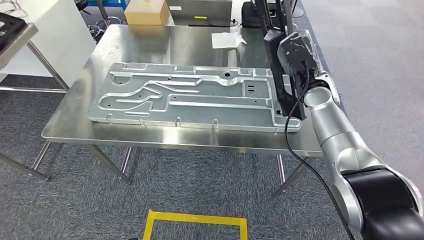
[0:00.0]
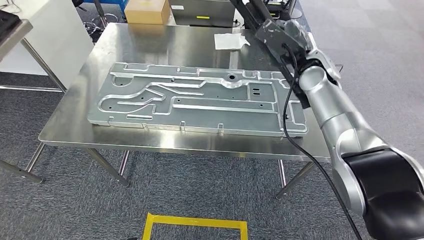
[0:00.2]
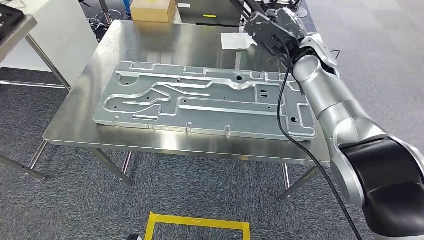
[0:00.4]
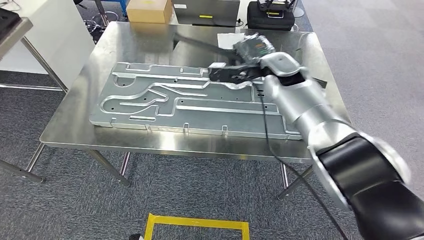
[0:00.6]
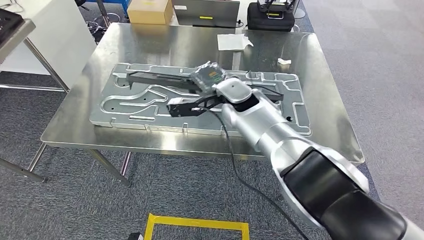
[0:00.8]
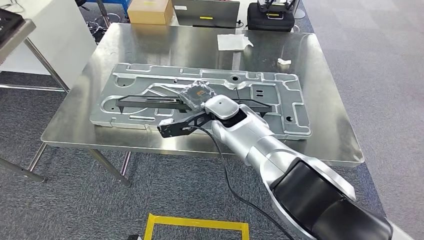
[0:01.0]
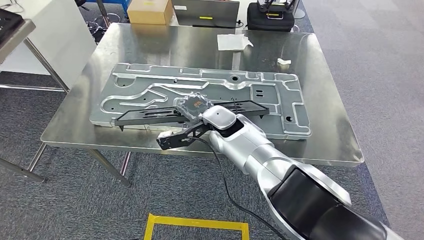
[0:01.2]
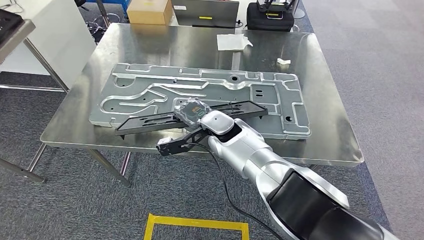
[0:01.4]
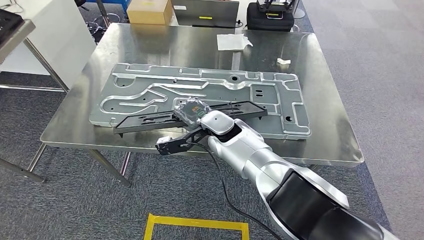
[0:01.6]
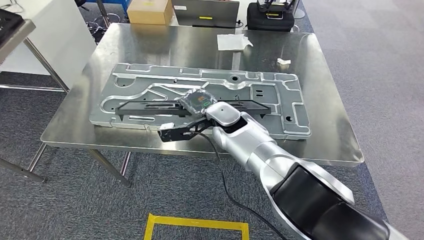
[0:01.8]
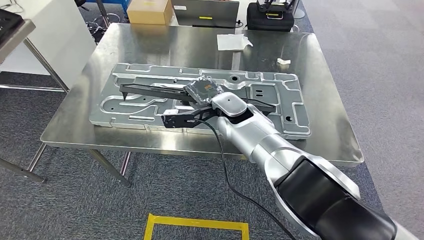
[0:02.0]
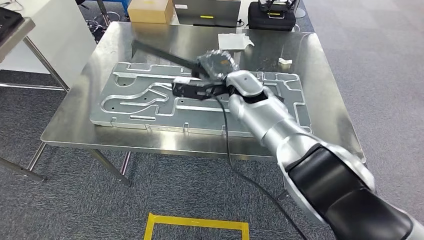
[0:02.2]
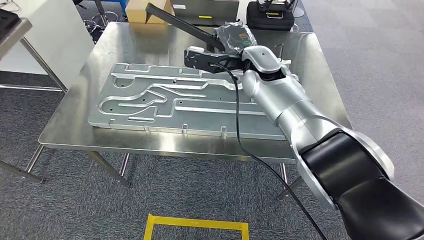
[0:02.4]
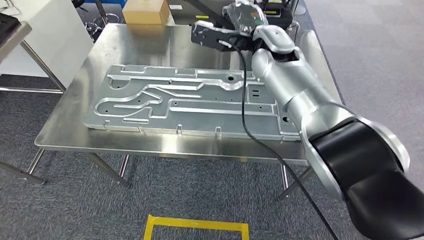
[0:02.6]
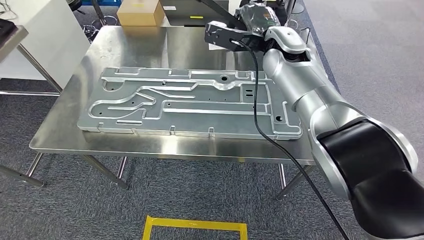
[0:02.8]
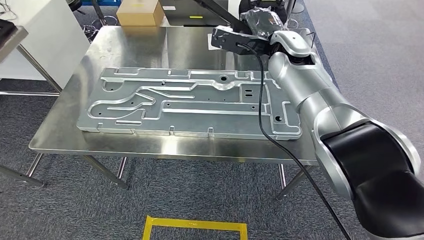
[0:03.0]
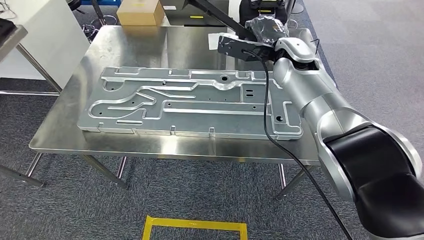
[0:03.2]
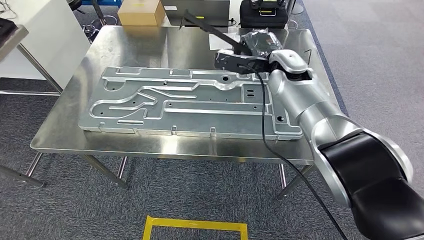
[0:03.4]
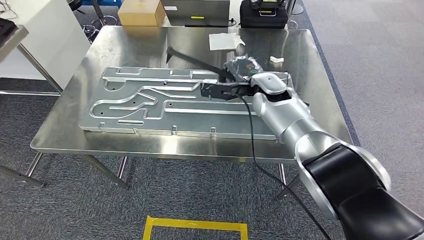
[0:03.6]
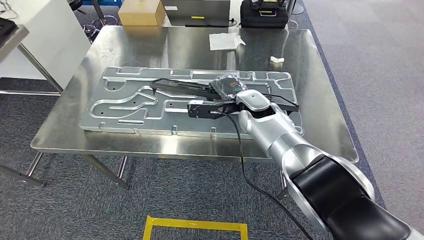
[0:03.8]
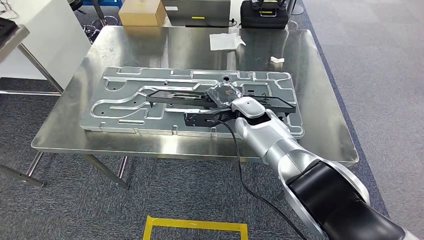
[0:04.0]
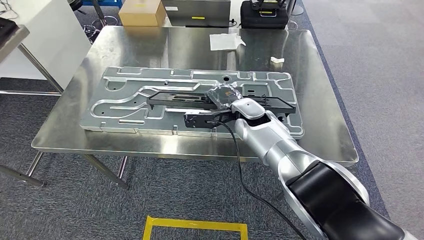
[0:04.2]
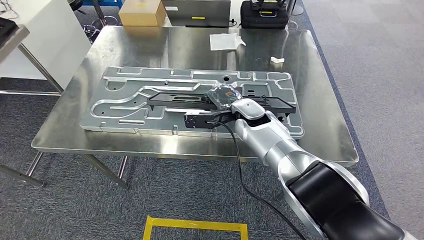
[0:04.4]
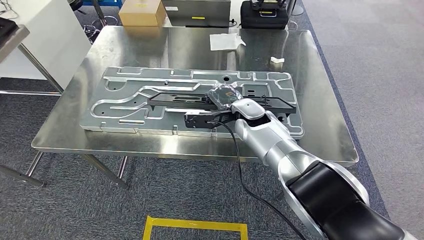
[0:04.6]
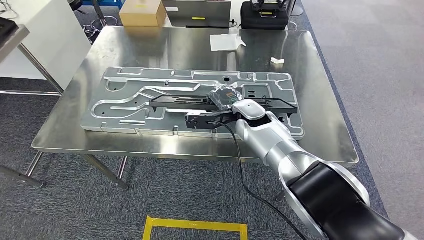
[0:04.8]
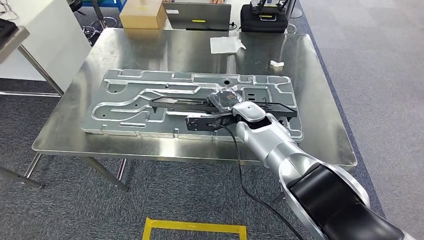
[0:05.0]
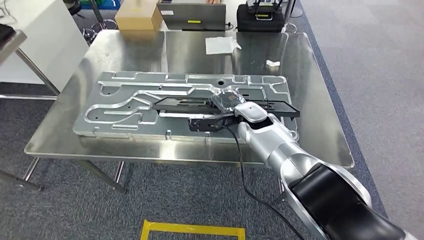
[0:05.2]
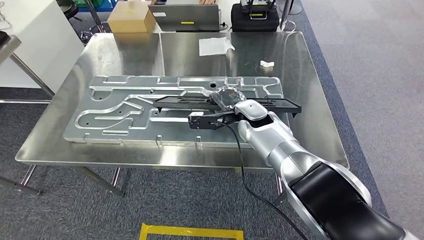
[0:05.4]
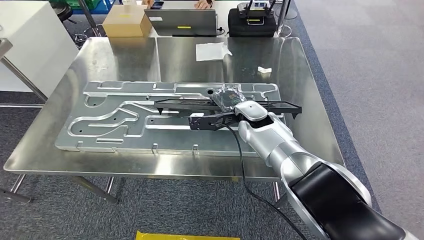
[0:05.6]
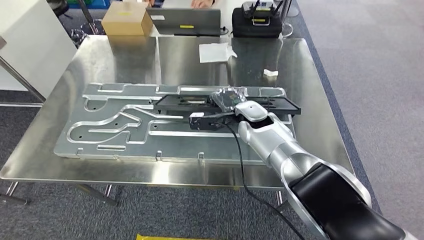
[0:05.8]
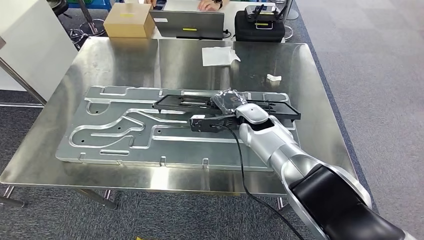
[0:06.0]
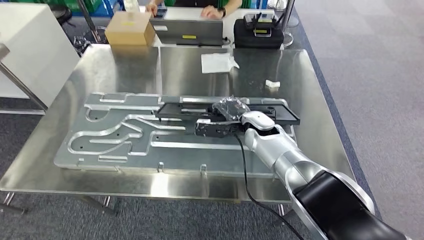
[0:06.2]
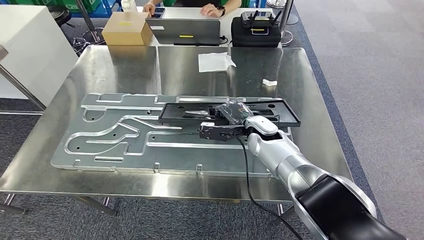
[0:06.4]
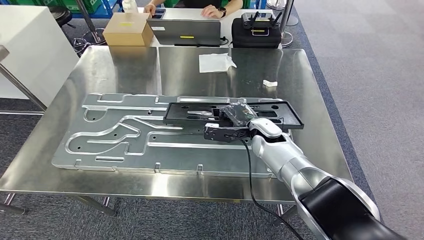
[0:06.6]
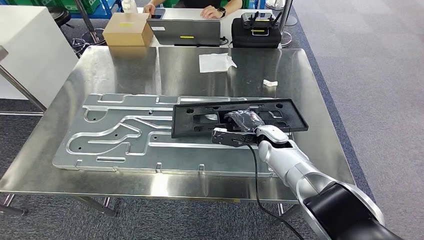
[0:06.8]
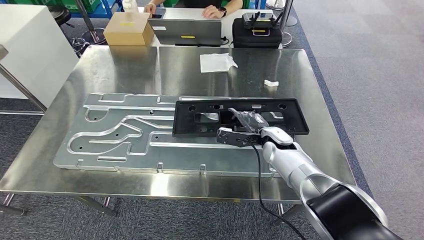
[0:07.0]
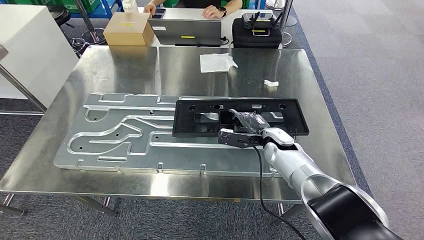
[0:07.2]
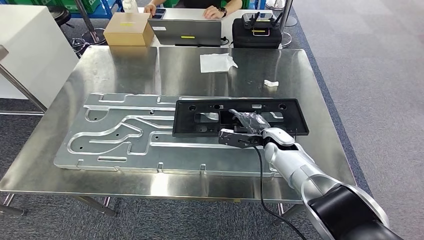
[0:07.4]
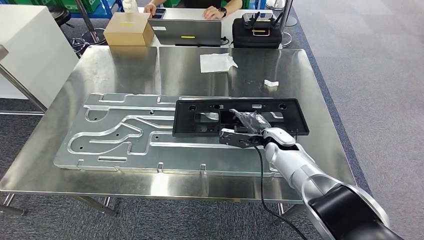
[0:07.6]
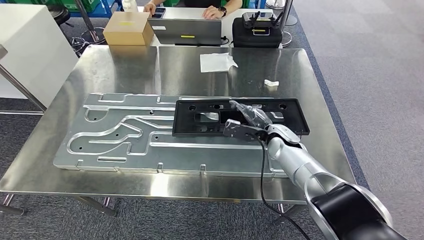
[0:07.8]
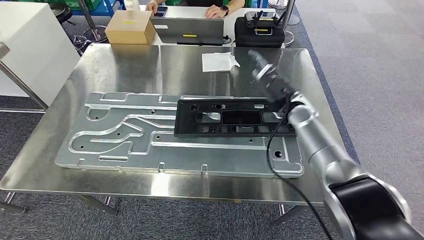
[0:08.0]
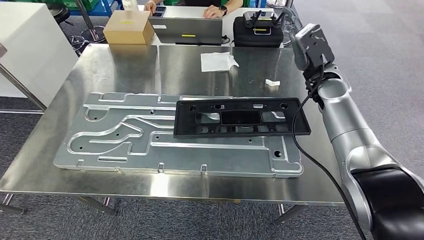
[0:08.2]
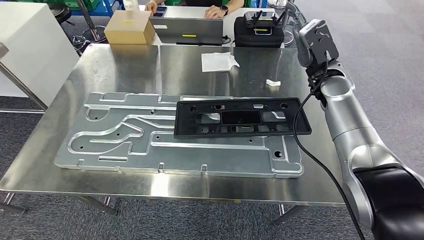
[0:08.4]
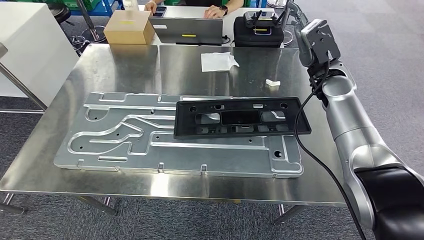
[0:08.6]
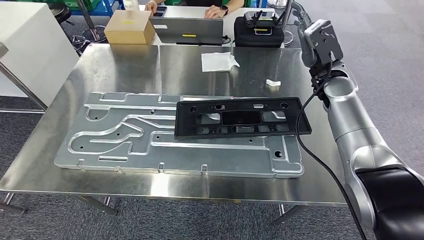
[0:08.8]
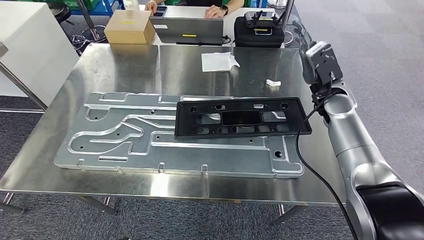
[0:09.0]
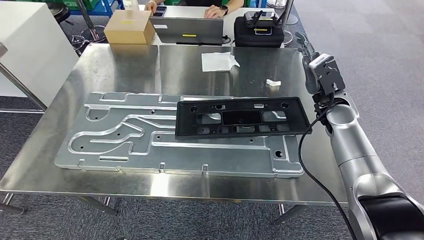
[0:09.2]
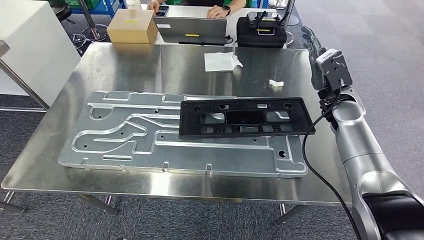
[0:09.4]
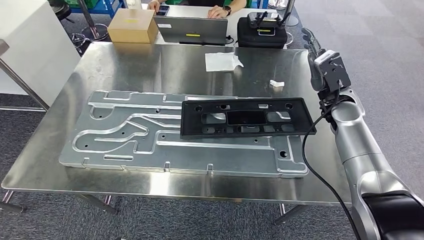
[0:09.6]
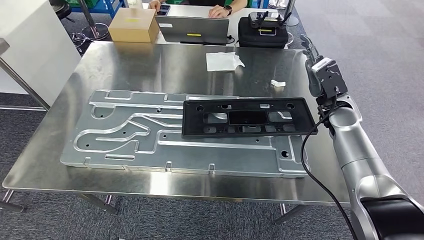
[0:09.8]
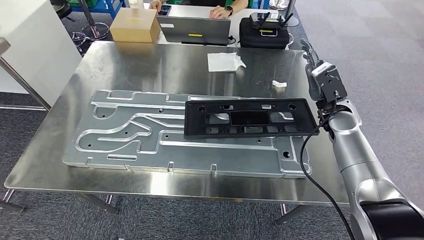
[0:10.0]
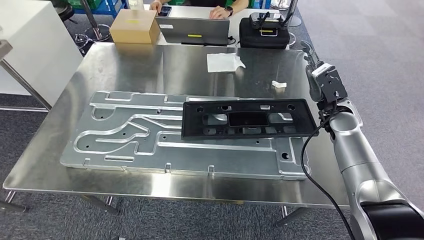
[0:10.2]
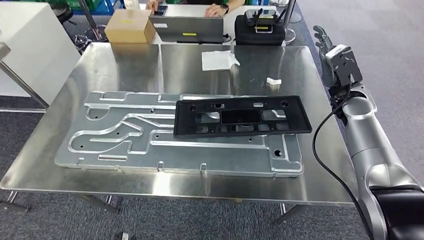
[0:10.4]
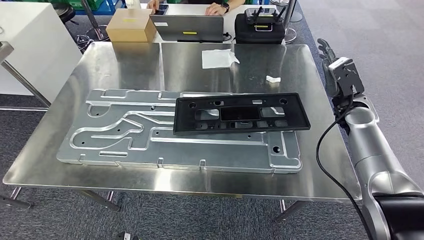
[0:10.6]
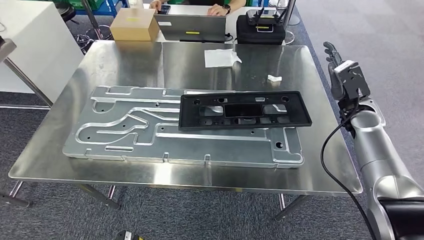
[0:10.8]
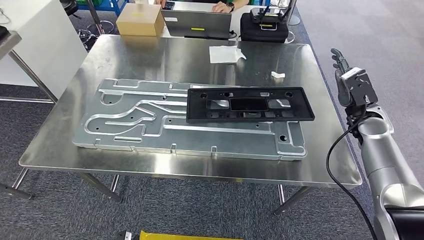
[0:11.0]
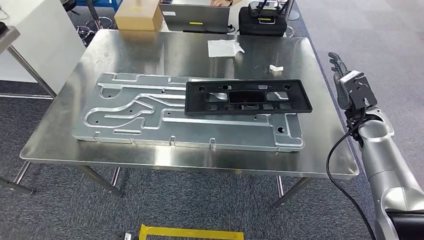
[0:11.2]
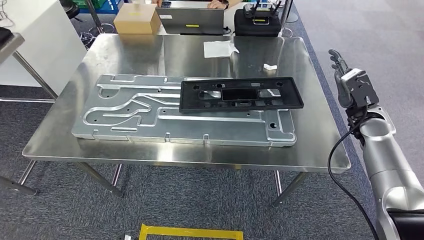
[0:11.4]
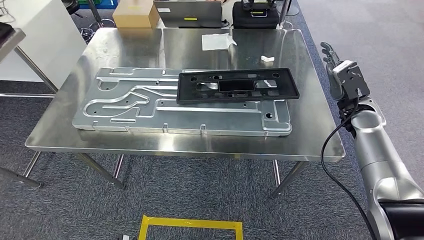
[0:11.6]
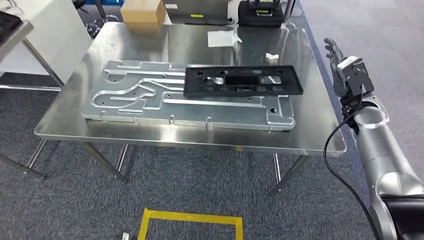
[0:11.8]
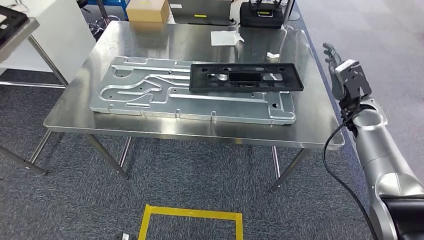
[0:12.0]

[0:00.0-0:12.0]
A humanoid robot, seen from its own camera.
Step, 0:01.0 to 0:09.4: Insert the large material into the corresponding slot on the workbench.

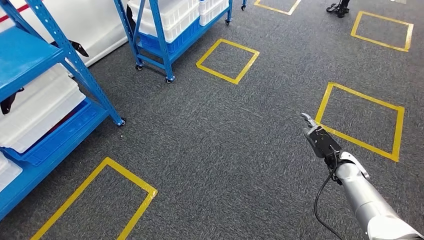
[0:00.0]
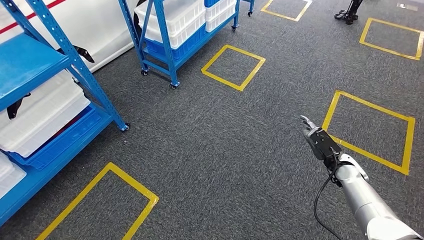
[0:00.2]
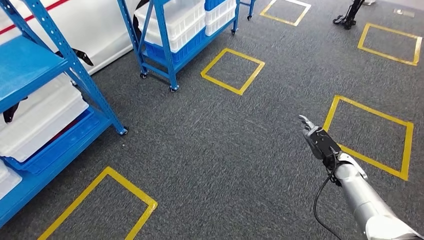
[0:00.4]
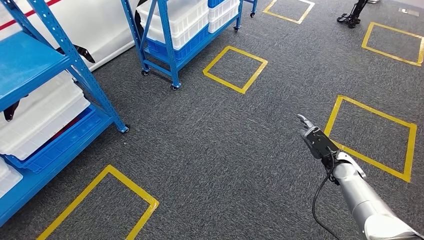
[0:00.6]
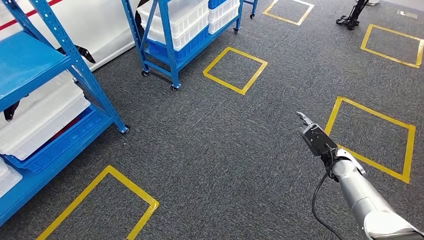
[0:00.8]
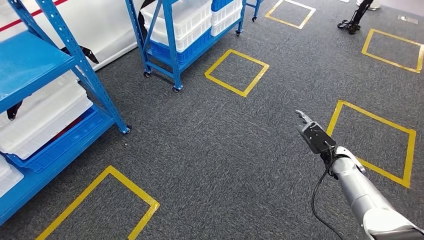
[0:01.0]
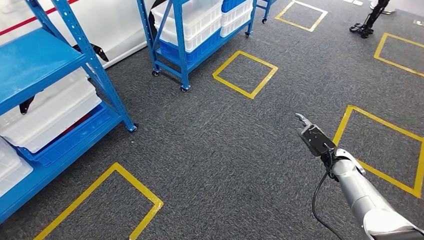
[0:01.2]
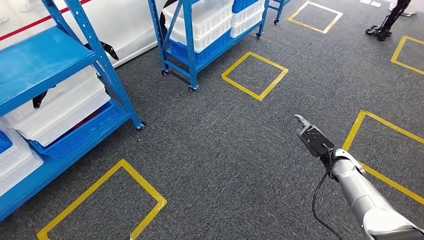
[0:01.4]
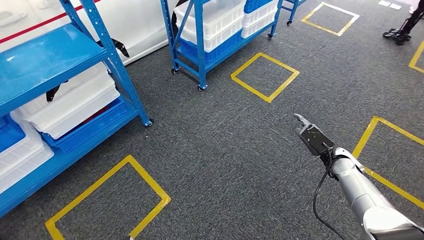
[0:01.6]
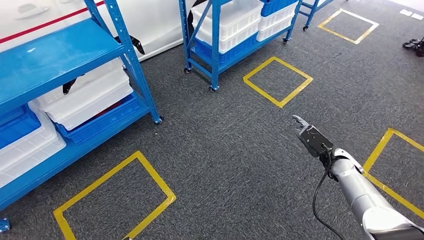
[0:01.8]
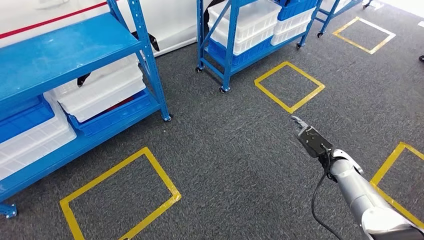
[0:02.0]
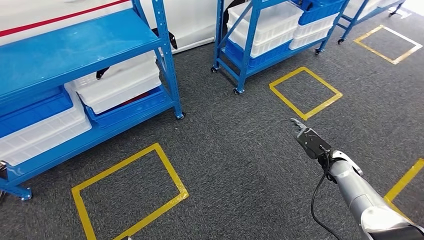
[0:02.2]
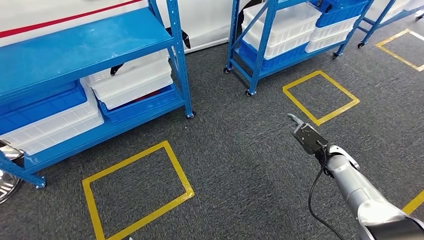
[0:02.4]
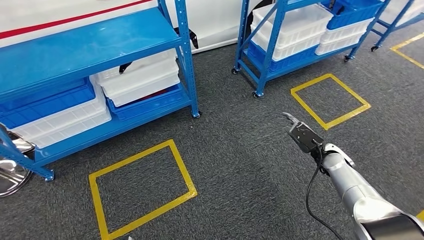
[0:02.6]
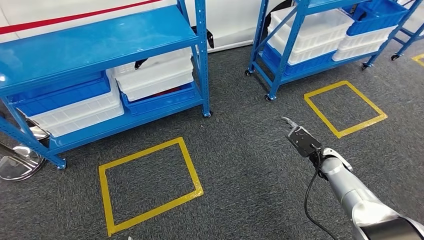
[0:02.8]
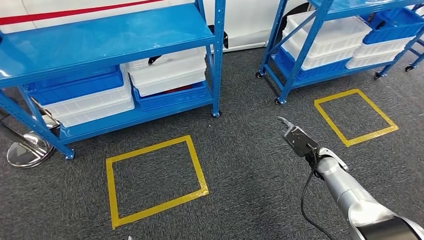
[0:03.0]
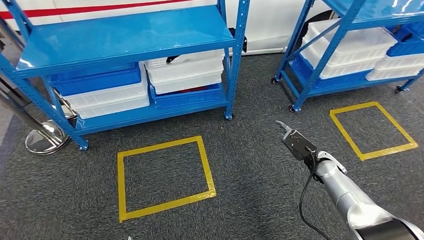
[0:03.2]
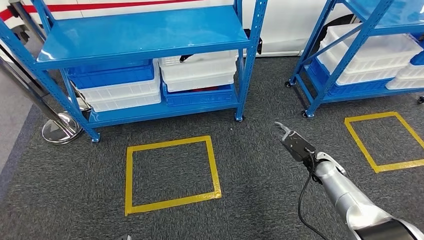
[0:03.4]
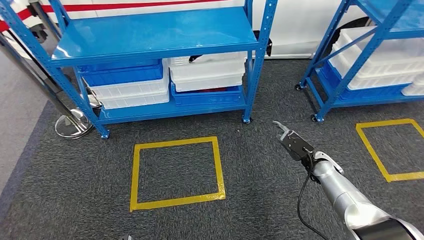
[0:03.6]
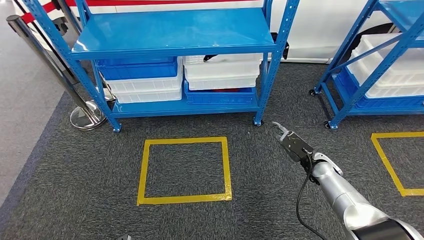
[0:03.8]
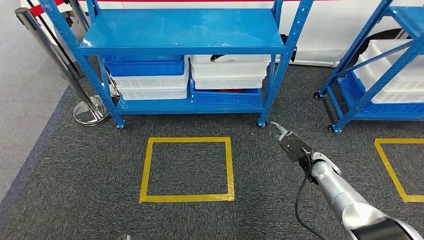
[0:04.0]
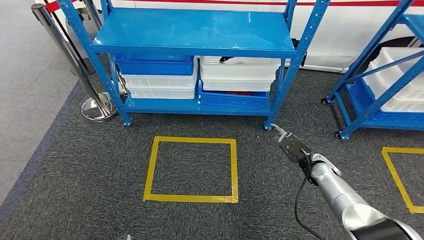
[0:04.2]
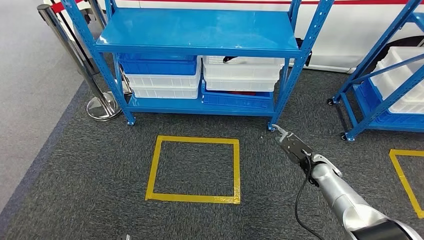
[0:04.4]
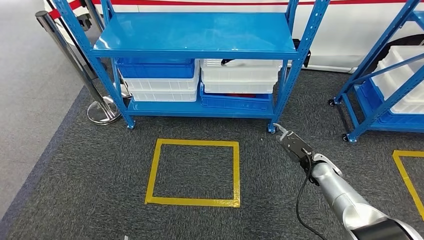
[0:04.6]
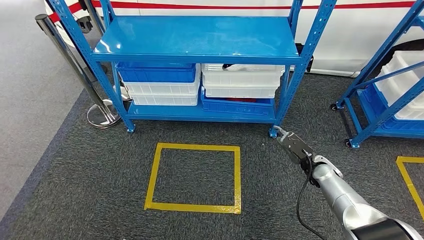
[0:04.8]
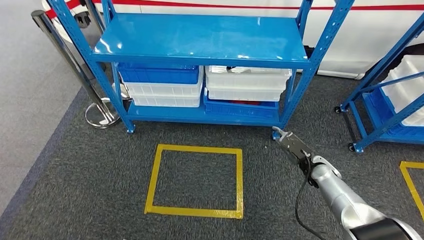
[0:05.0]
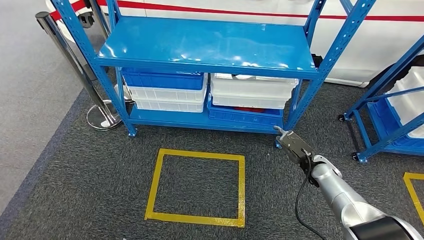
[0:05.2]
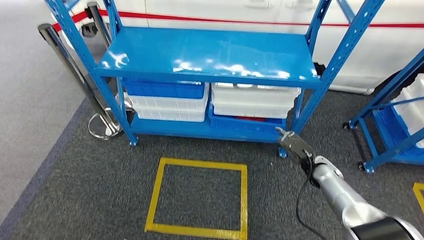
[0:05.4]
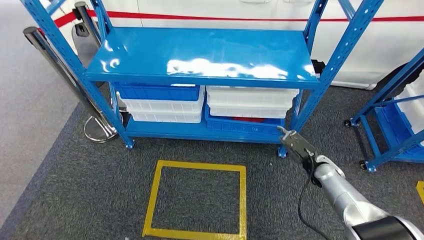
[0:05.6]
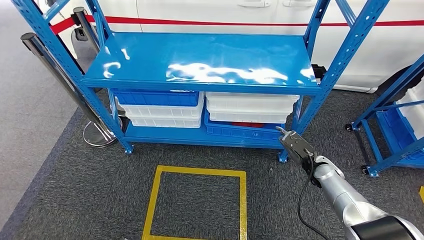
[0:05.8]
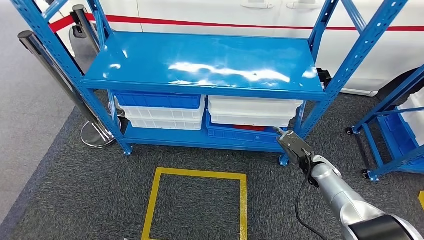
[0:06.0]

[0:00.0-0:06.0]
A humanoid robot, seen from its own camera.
Step, 0:00.0 to 0:06.0: Move to the initial position of the shelf.
